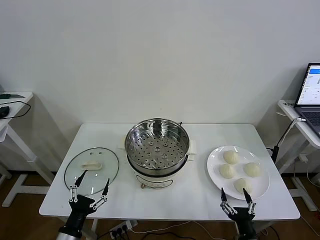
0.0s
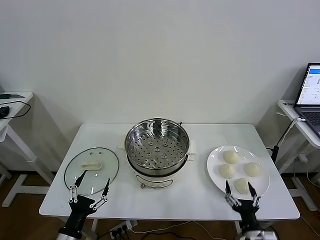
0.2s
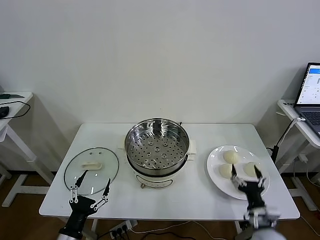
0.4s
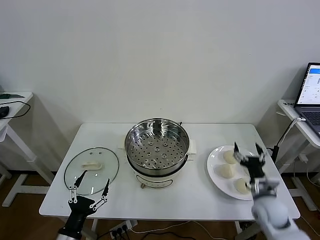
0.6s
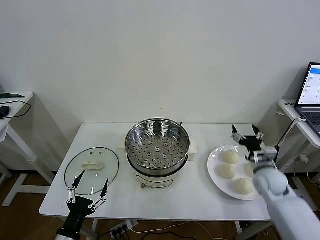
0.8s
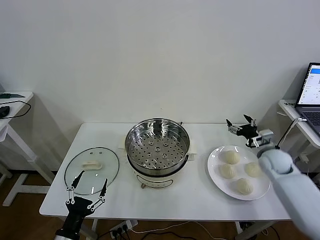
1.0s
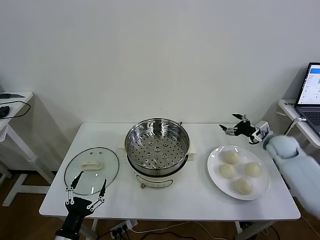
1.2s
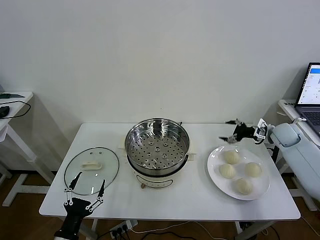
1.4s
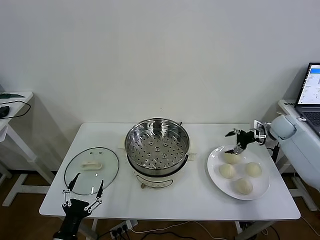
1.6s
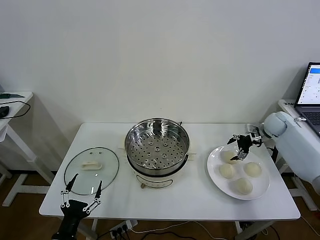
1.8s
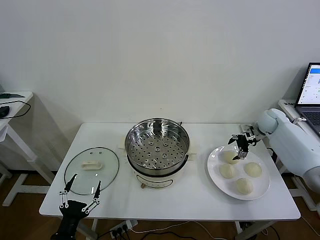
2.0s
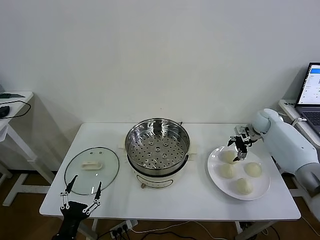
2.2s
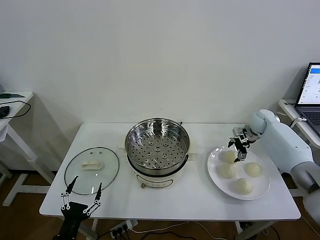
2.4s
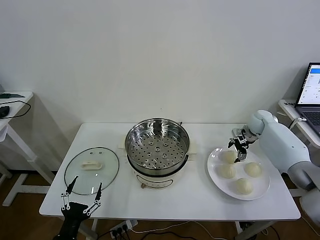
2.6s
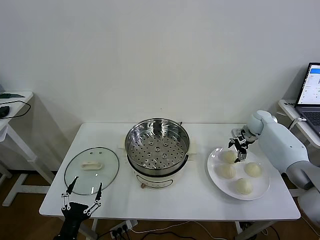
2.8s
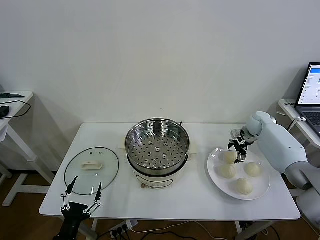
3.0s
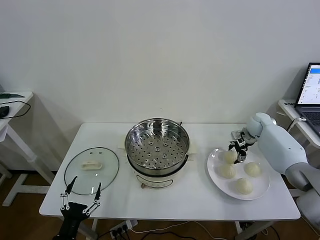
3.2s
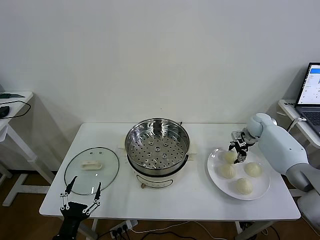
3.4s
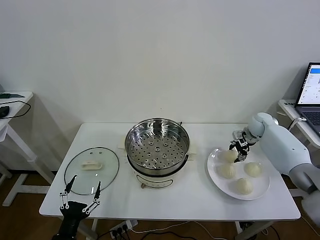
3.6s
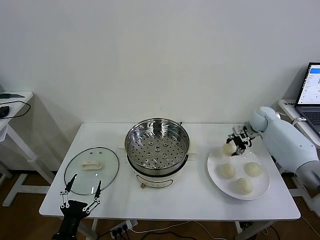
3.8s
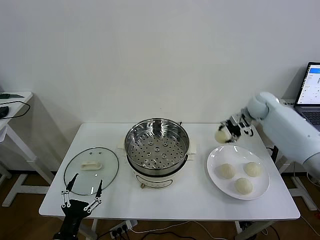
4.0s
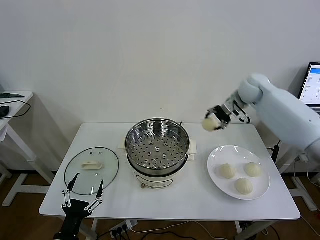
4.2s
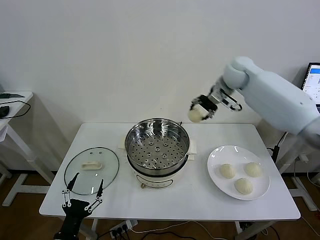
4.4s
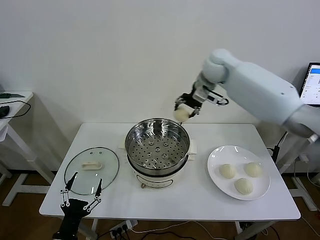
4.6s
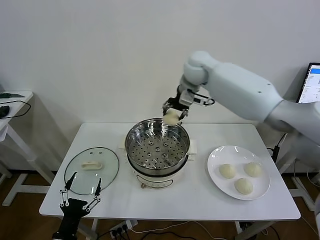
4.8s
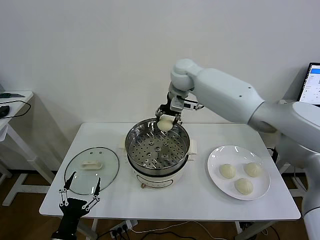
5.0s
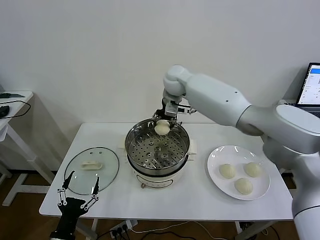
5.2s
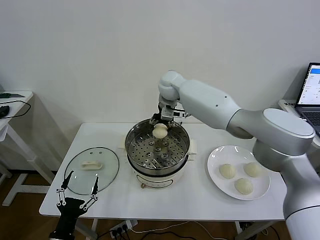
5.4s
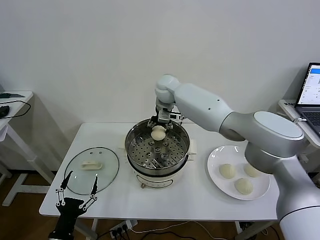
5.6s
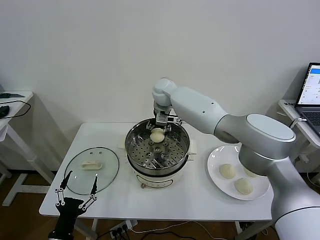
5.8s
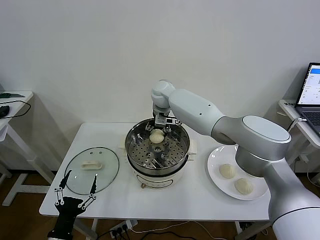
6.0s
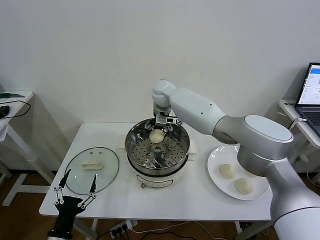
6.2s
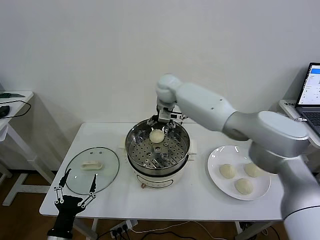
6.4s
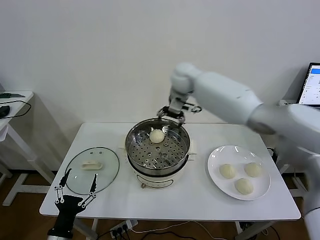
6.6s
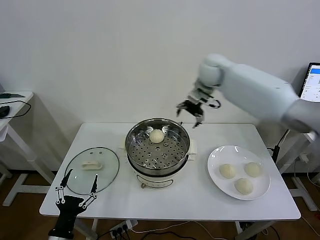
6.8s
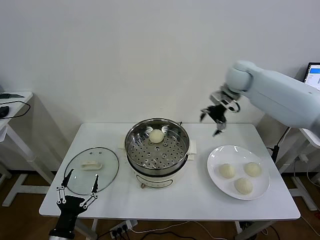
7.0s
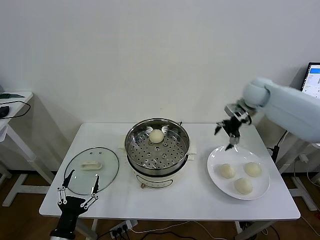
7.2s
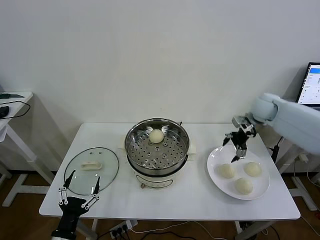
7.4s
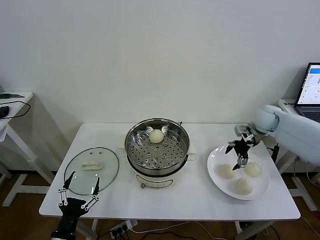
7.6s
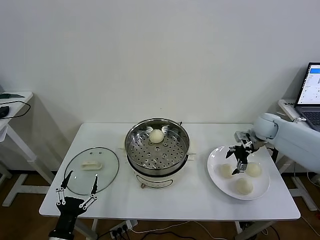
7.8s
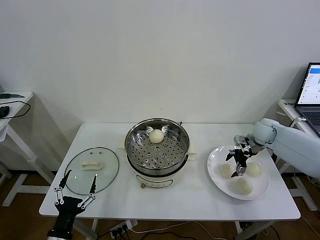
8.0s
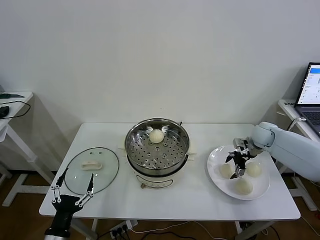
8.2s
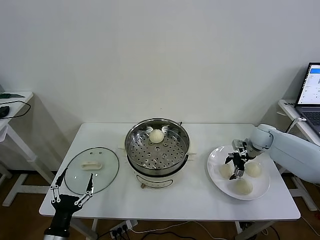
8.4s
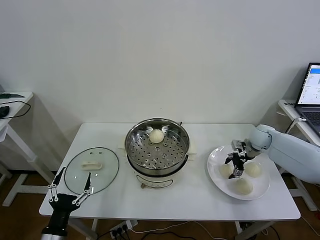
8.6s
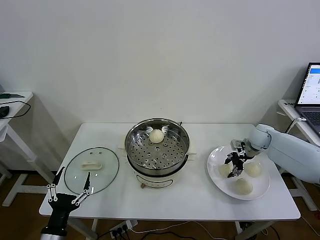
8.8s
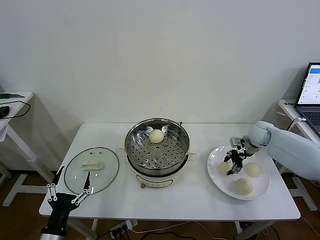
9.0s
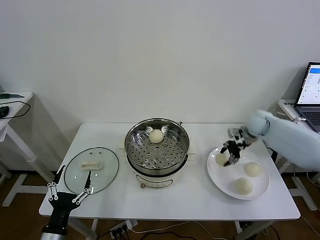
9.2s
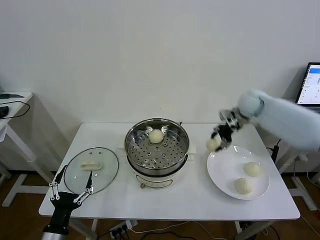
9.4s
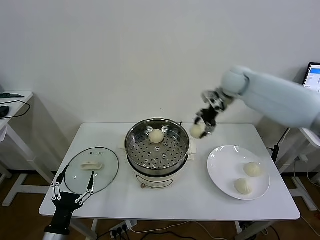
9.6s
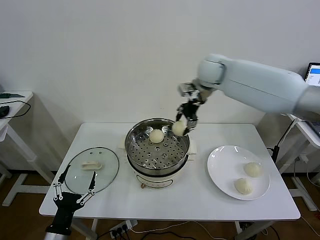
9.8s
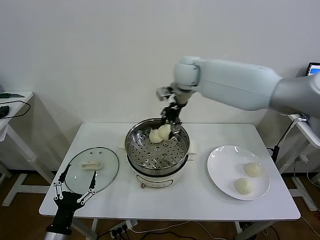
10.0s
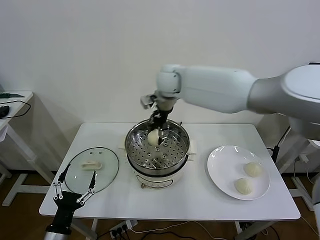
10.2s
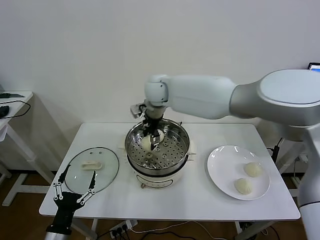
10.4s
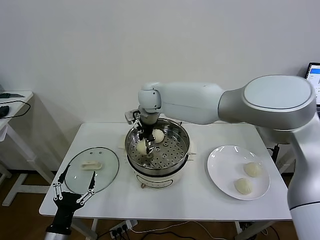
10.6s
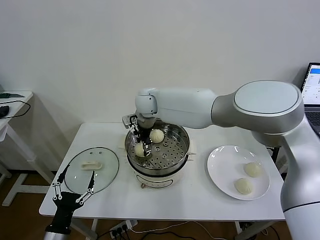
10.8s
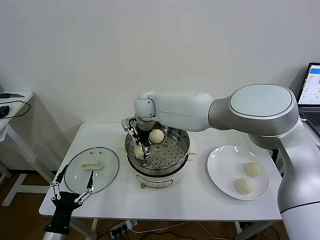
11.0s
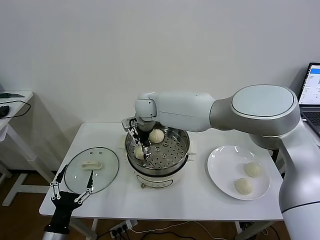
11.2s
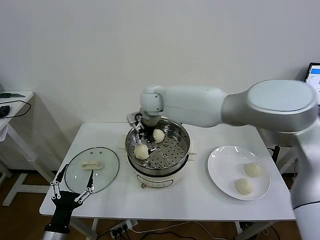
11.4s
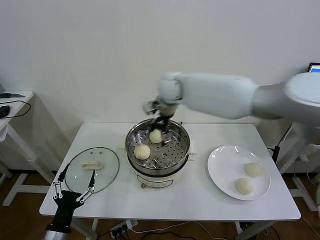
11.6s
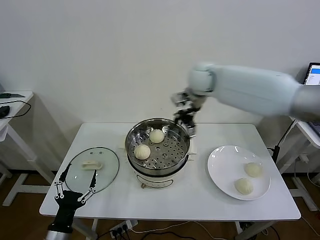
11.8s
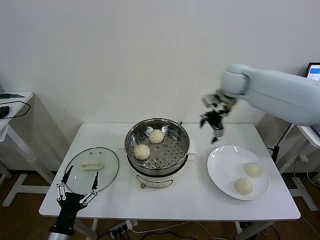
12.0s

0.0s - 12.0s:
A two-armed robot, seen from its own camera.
Task of the whole recording: take steamed baozi put them in steamer then cover it.
Step, 0.0s - 3.2s: Grasp the baozi in the plate with right gripper.
Step, 3.4s - 6.2s: Place the baozi on the steamer with right gripper.
Step, 6.6s - 8.6s: Grasp the baozi in the plate with right gripper.
Step, 8.8s - 11.0s: Place the baozi on the steamer with right gripper.
1.6s - 3.0s: The right gripper is displaced to the left by roughly 5 cm.
3.0s - 4.4s: The right gripper is displaced upward and to the left by some 30 cm, and closes up.
4.4s - 6.0s: The right gripper heads to the left and downward, covering roughly 25 cm, and opens up.
6.0s - 7.6s: The right gripper is displaced to the right by roughly 40 cm.
7.6s - 9.0s: The right gripper closes up.
9.0s - 10.4s: The right gripper heads to the left and upward, covering some 40 cm.
10.4s - 12.0s: The right gripper shifts about 30 cm to the right, and opens its fingers.

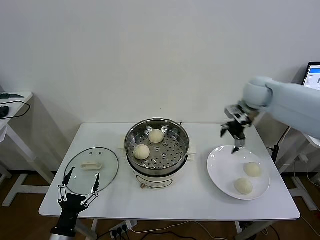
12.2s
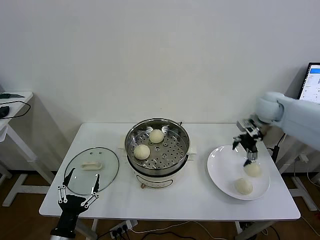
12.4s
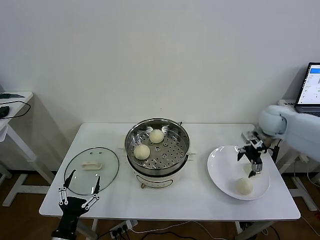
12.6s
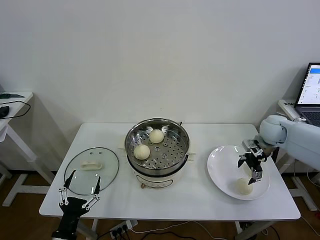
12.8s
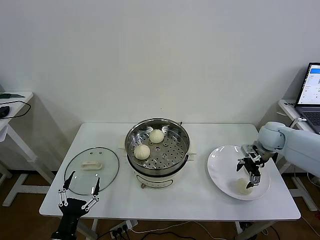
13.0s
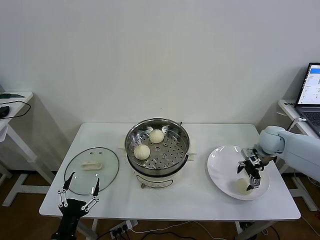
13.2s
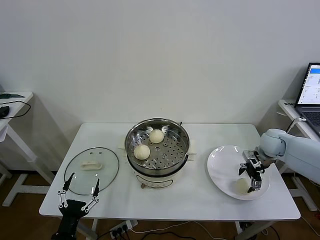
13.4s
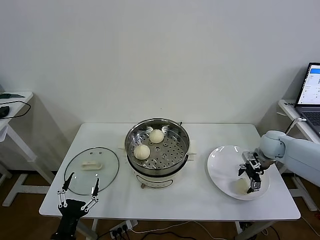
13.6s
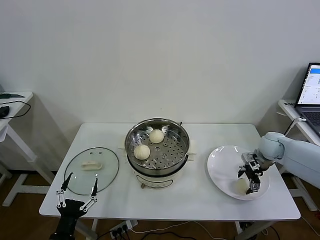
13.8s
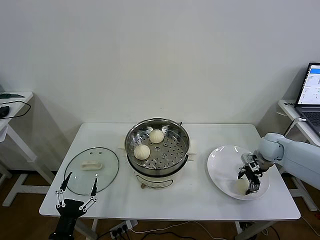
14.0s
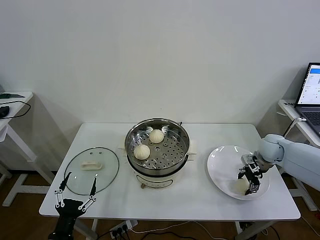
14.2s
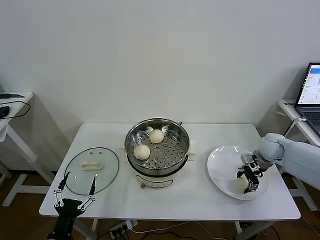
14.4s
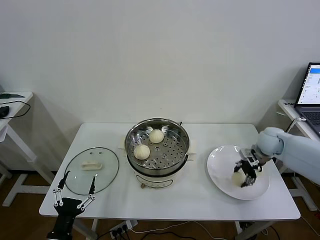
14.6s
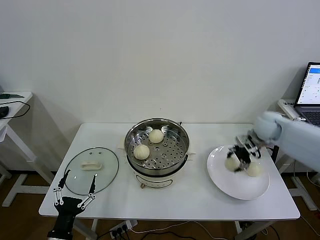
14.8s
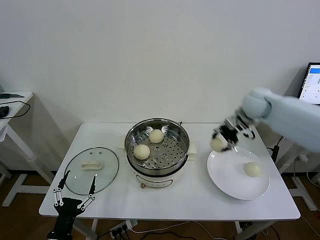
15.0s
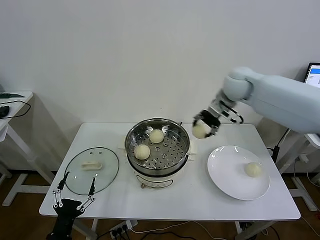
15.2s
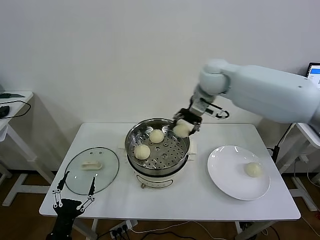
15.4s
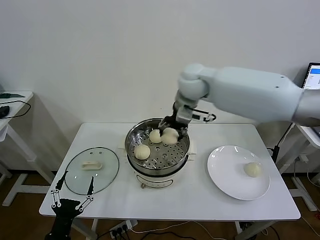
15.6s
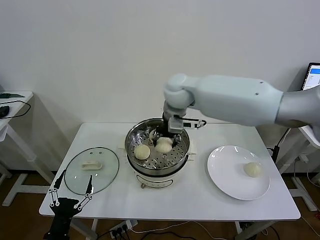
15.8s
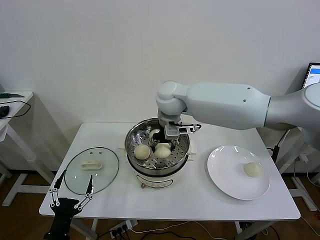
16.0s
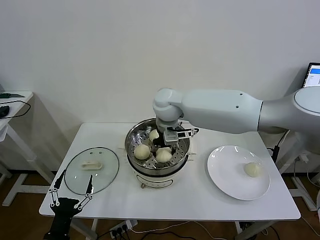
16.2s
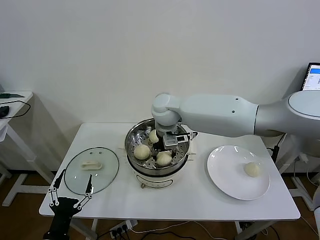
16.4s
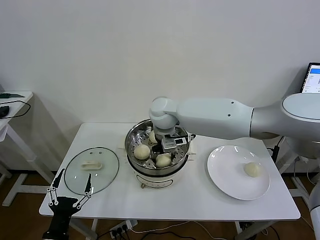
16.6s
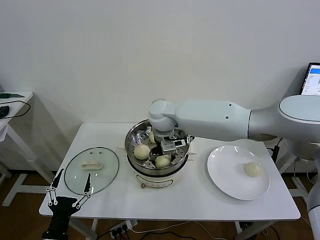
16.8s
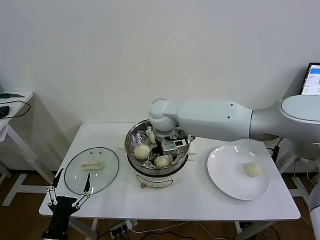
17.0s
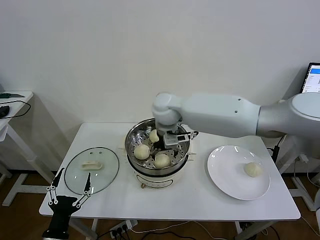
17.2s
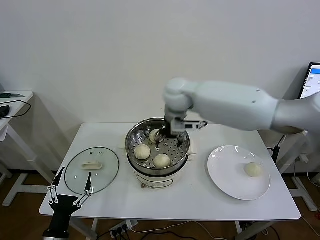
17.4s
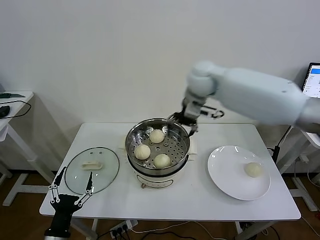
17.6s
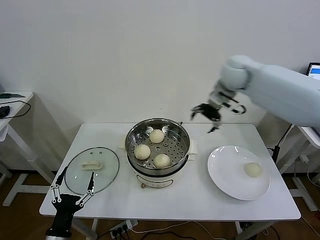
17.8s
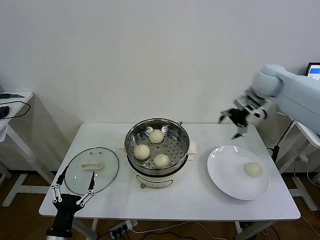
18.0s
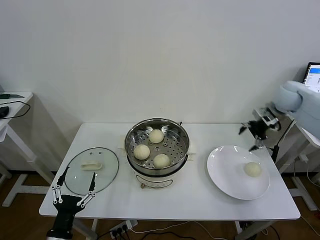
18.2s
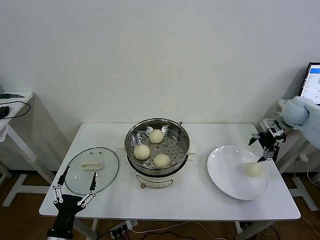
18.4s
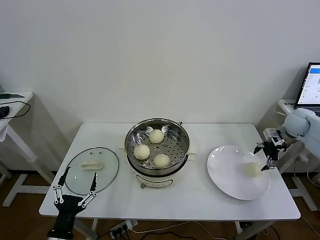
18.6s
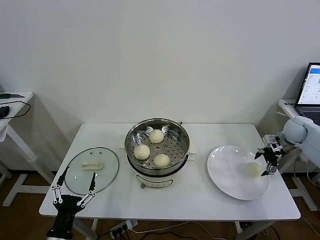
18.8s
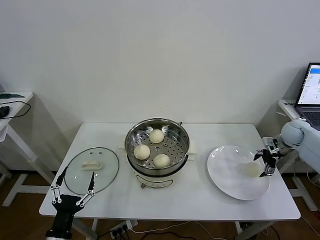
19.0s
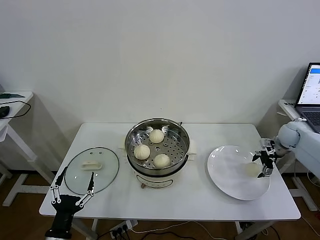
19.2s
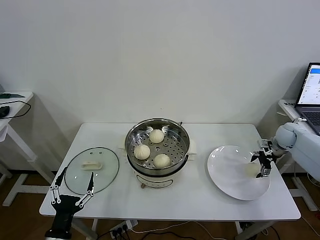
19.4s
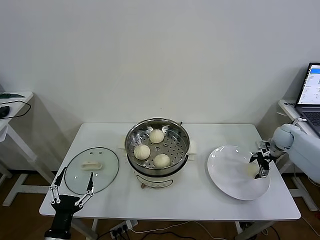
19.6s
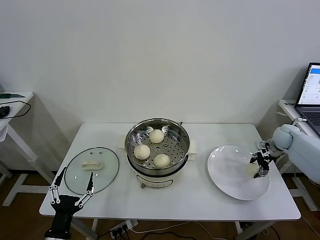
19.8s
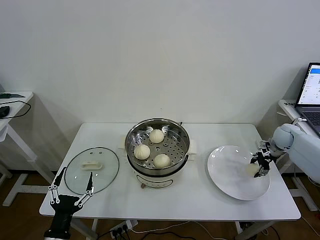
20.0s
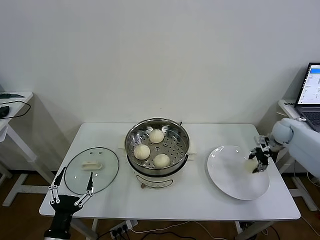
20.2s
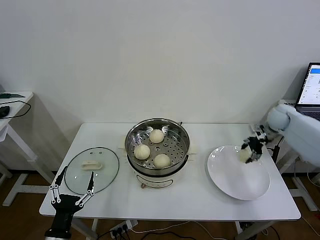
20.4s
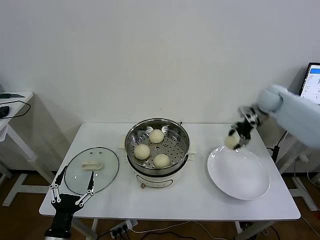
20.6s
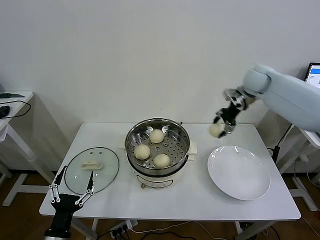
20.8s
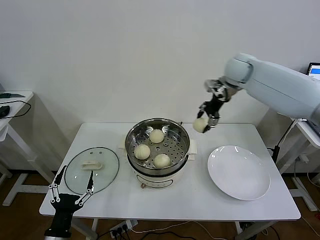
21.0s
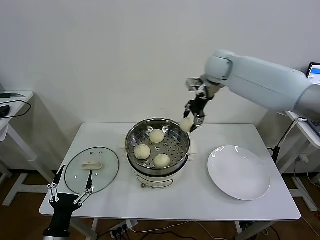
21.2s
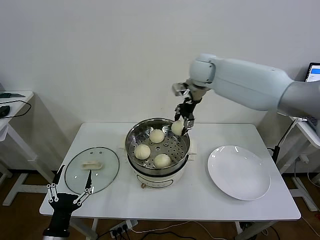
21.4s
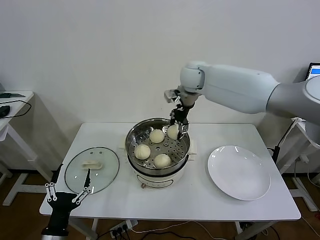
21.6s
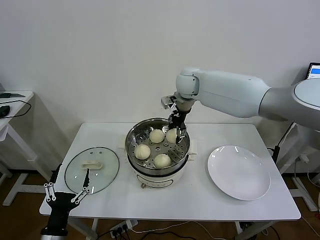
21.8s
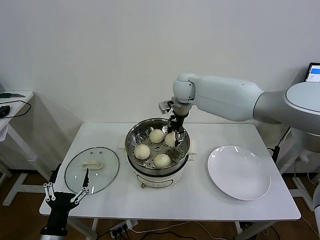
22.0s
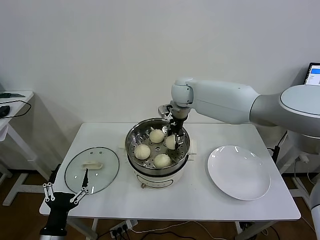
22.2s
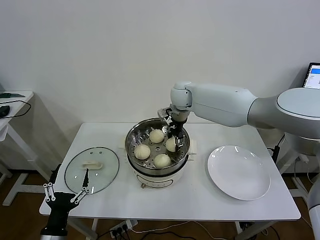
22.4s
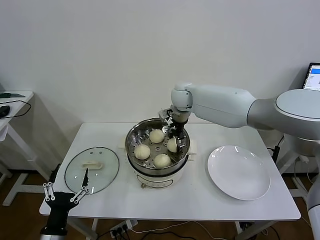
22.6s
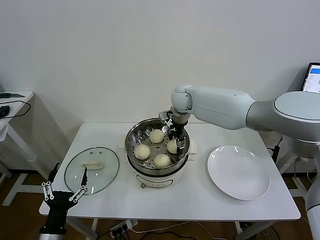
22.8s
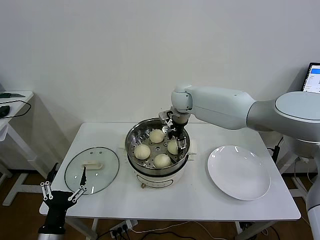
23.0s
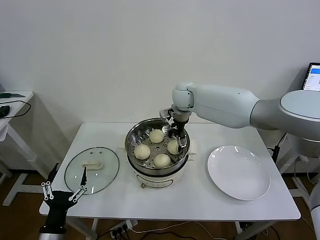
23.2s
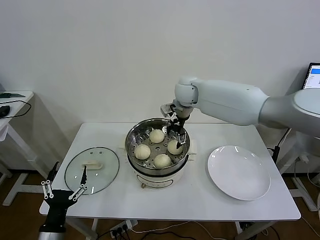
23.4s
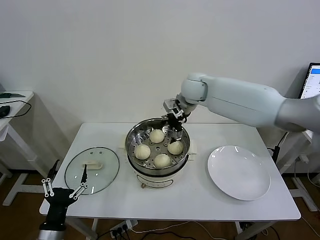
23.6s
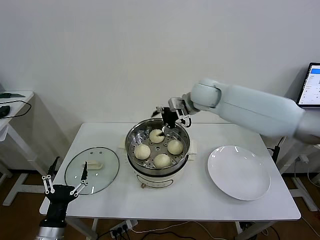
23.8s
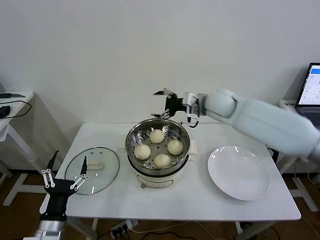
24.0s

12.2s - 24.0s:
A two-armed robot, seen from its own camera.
Task of the whole recording: take steamed baozi put them in steamer then cover it.
Step, 12.2s - 14.2s: Grasp the baozi in the plate with right gripper.
Step, 14.4s - 17.0s: Place the baozi on the steamer with right gripper.
Step, 17.2s - 20.0s: Grasp the baozi in the plate with right gripper.
Step, 20.2s - 23.0s: Place the baozi on the steamer with right gripper.
12.2s - 13.6s: The right gripper is displaced downward and to the right by roughly 20 cm.
13.6s - 15.2s: The right gripper shifts about 30 cm upward and to the left, and closes.
15.2s - 16.6s: The right gripper heads to the left and downward, covering approximately 25 cm.
16.6s - 18.2s: The right gripper shifts roughly 40 cm to the right, and opens its fingers.
18.2s - 19.6s: The right gripper moves downward, roughly 15 cm.
19.6s - 21.0s: The right gripper is displaced to the left and upward by about 35 cm, and closes its fingers.
21.0s - 22.6s: The right gripper heads to the left and downward, covering about 20 cm.
22.6s - 24.0s: The right gripper heads to the right and backward, covering about 15 cm, and opens its fingers.
